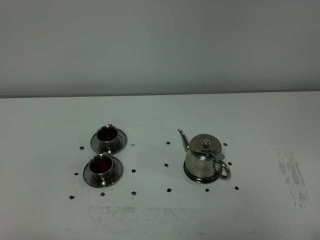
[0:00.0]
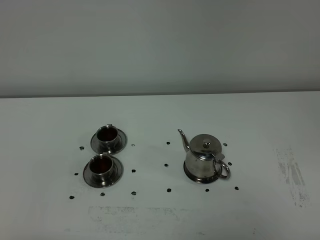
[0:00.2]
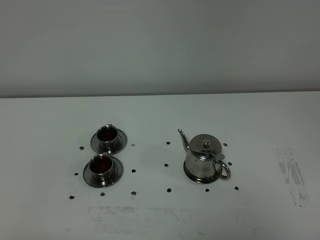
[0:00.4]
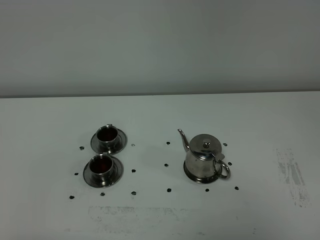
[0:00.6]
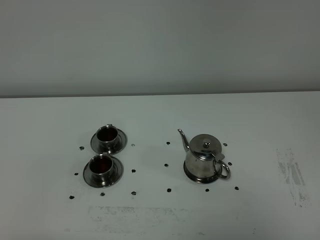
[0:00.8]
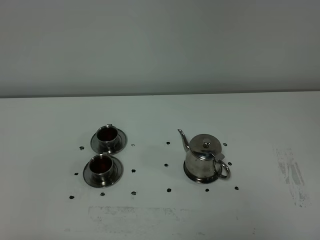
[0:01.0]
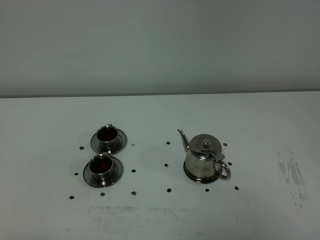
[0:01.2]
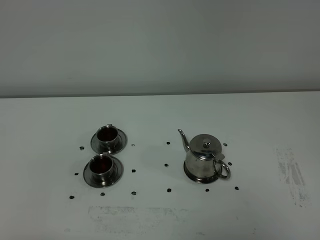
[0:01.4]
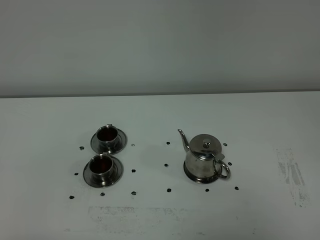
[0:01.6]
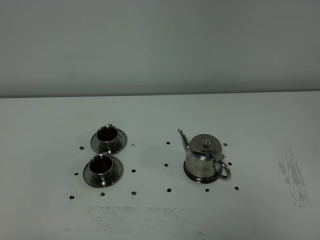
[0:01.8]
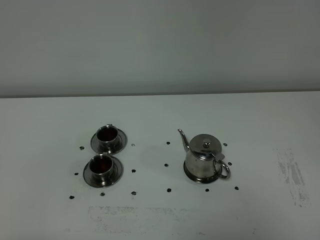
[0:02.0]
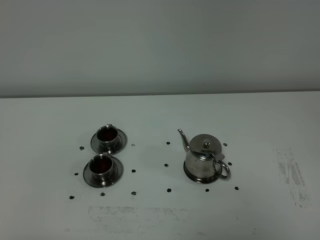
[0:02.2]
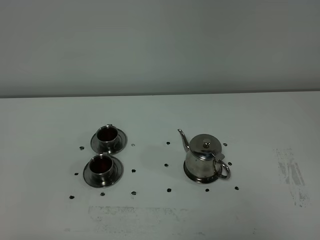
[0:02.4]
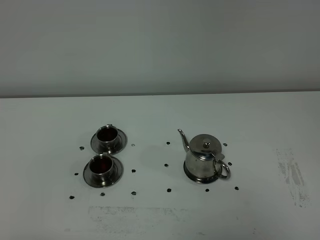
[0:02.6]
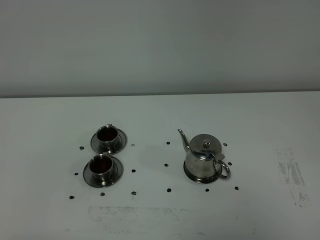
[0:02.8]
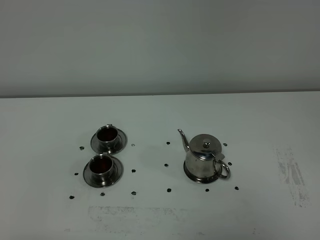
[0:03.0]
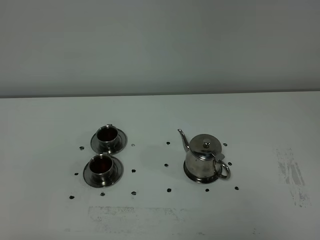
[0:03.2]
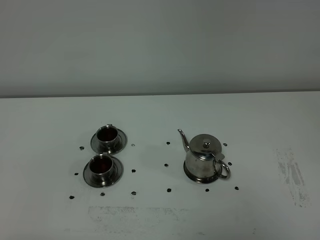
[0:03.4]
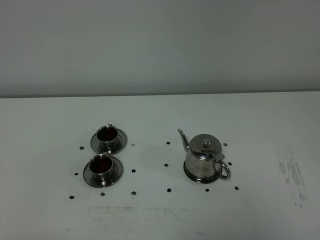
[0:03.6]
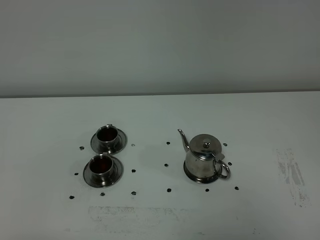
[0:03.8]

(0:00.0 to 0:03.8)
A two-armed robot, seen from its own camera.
Task of the whole recording: grasp the stainless steel teapot and pour the tea into the two stainless steel teacups one by one, put the stainless steel teapot back in its original place.
0:01.2 - 0:03.8: Neither gripper changes place.

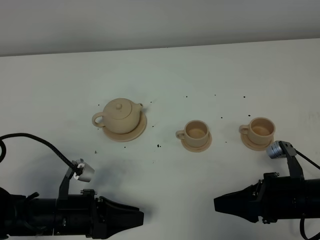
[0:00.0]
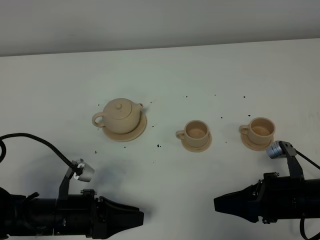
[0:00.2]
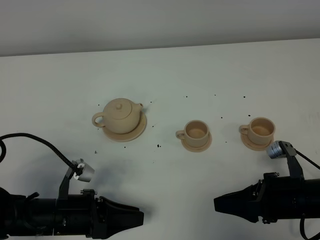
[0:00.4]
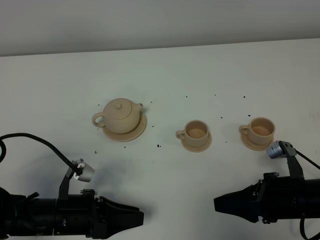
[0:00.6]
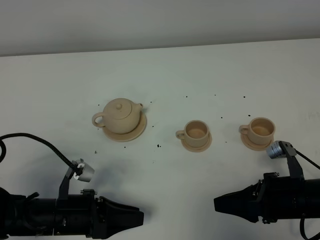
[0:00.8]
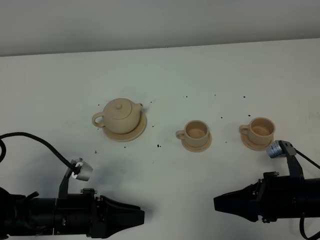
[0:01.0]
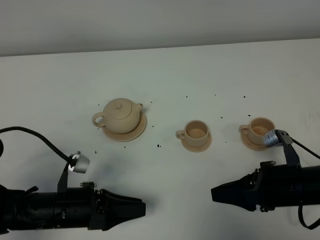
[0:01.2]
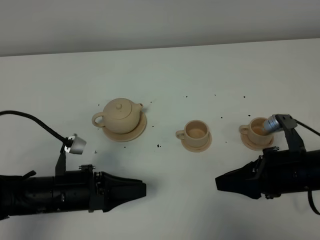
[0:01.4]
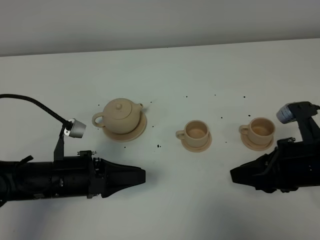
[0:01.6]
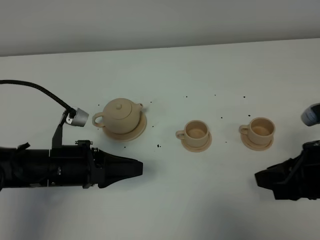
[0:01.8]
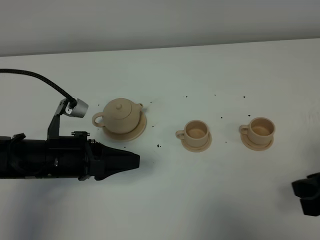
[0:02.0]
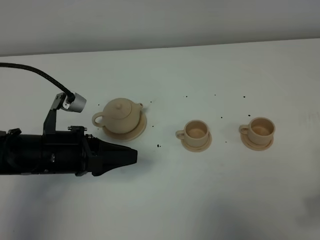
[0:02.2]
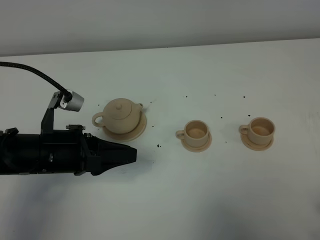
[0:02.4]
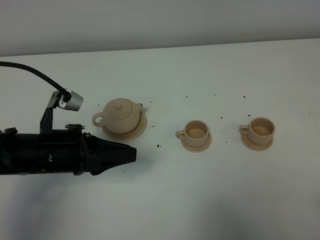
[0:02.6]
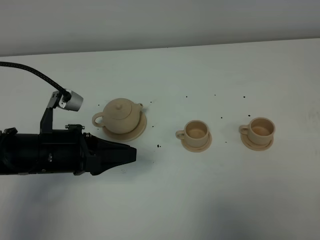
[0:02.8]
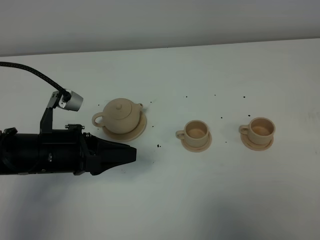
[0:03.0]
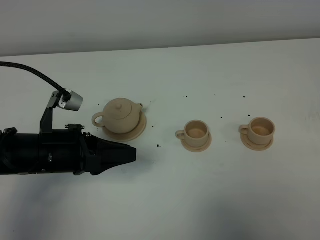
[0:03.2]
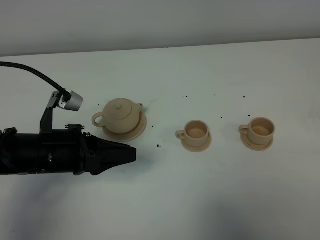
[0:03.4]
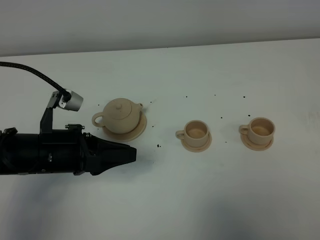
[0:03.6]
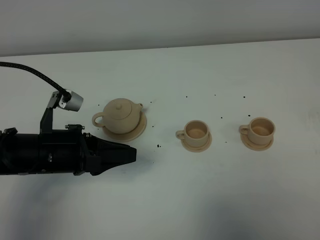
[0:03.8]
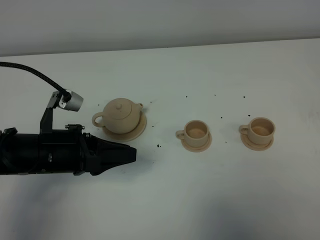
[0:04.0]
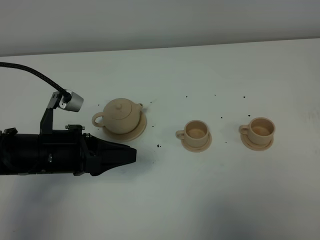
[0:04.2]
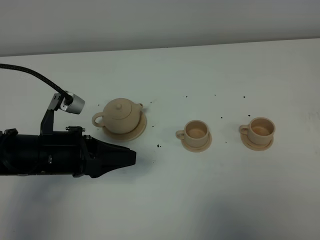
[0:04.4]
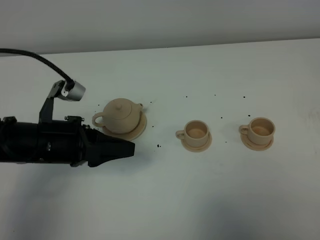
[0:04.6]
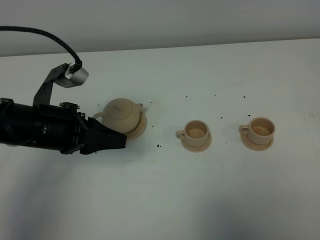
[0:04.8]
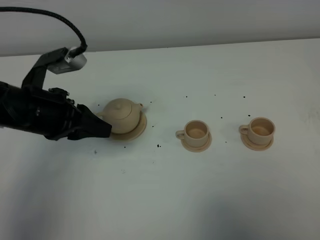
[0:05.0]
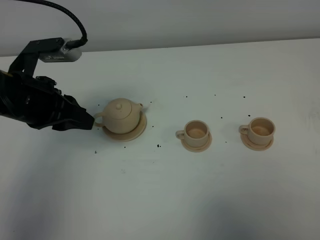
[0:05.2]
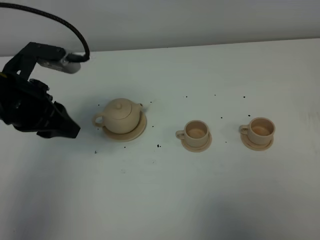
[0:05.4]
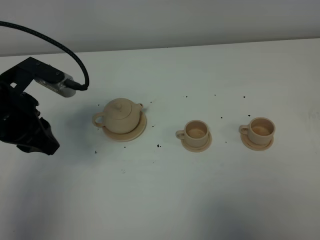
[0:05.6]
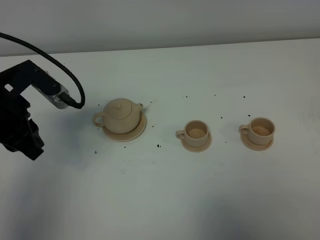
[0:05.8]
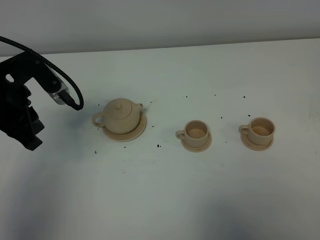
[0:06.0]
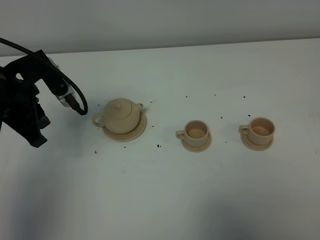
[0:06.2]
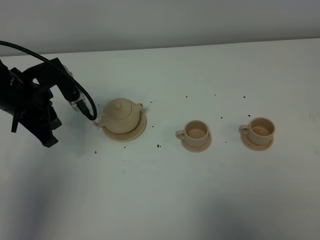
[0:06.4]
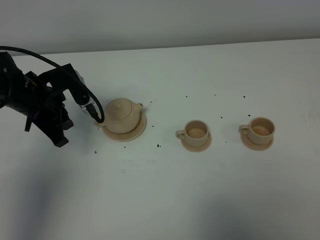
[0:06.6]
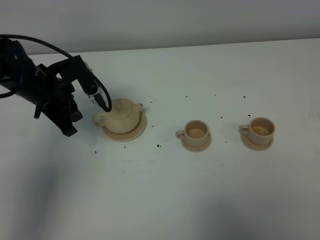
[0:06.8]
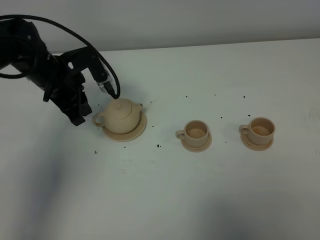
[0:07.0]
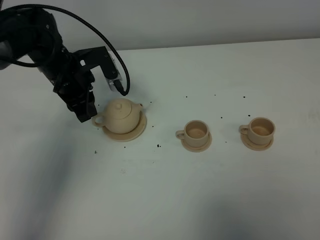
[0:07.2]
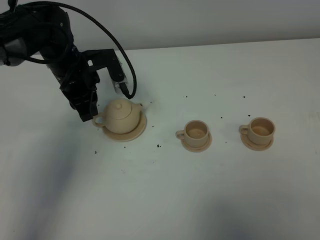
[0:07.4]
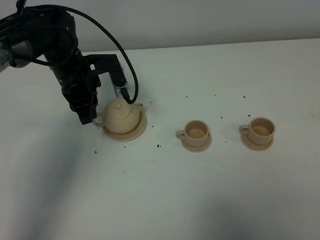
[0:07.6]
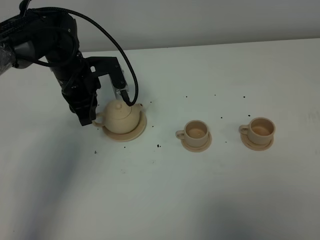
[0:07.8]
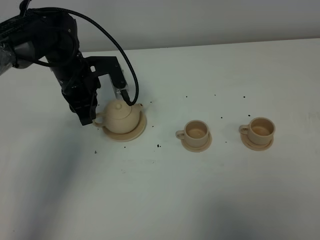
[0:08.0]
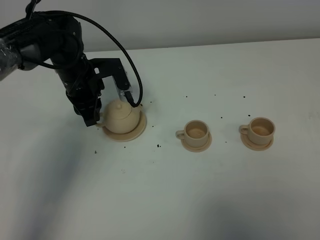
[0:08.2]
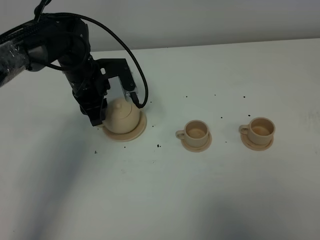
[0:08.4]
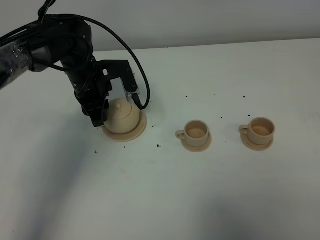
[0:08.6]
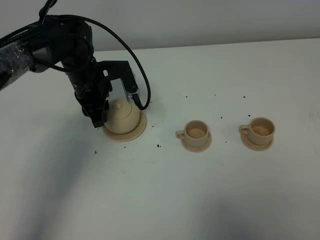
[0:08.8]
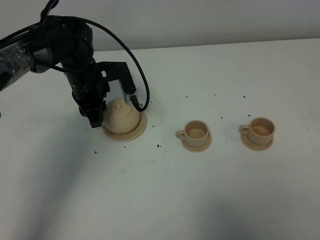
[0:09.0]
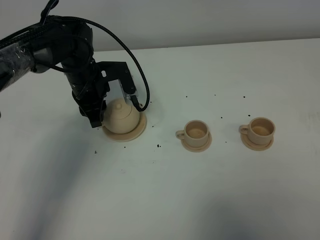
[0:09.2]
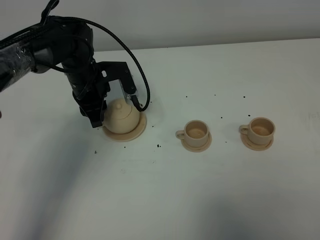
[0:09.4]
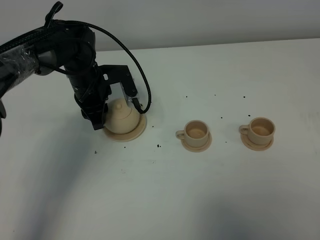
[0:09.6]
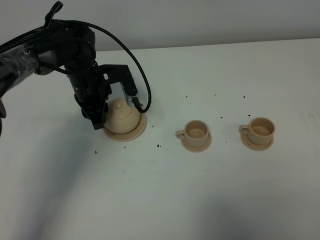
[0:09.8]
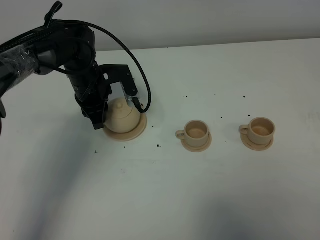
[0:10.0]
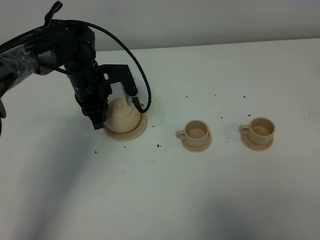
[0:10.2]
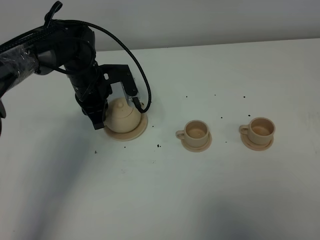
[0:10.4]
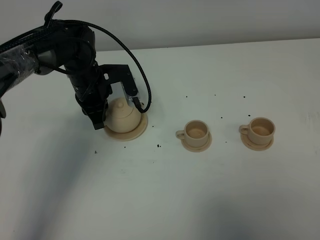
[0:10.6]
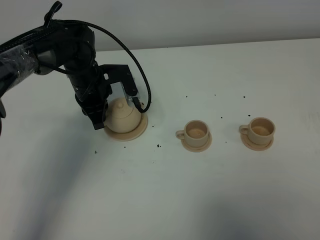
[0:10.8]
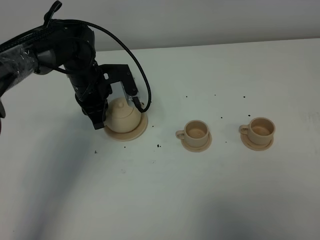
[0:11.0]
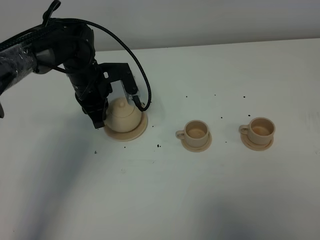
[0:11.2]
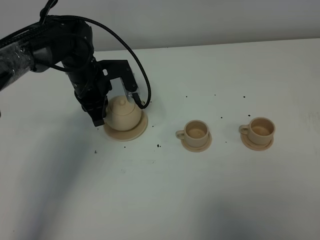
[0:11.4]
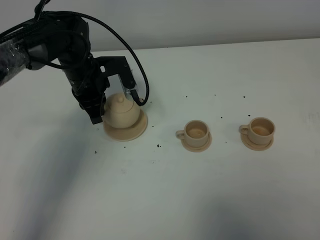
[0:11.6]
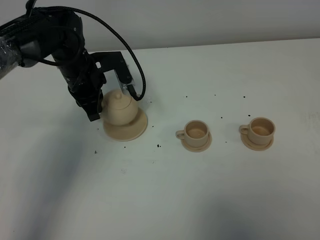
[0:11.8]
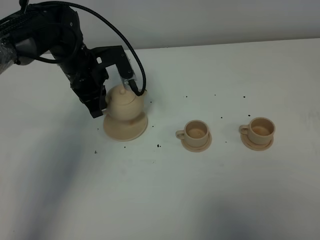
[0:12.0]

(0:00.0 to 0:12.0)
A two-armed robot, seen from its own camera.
Task of the whole recording: grasp the brown teapot and pour the tea into the two brown teacups one by one, put the brown teapot back in its original place.
Step, 0:00.0 - 0:11.4: Pick up the teapot with the left gripper.
0:00.0 - 0:01.6: The left gripper heads upward, covering approximately 5 cm. Meanwhile the right gripper shifts approximately 10 cm upward.
0:01.6 - 0:03.0: The left gripper heads upward, covering roughly 5 cm, while the right gripper shifts some 20 cm backward, to the right and upward.
0:03.0 - 0:04.4: The grippers stay close to where they were, moving slightly.
0:04.4 - 0:06.0: The left gripper heads upward, forward and to the left, covering some 10 cm.
0:06.0 - 0:07.6: The left gripper heads forward, downward and to the right, covering approximately 15 cm.
0:07.6 - 0:09.0: The grippers stay close to where they were, moving slightly.
0:09.0 - 0:10.4: The left gripper closes up.
0:10.4 - 0:12.0: There are only small adjustments of the grippers.

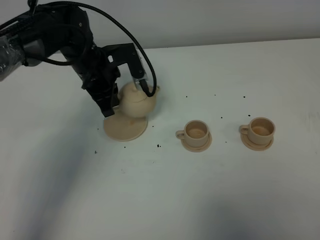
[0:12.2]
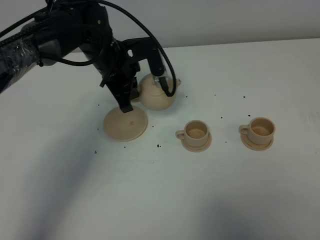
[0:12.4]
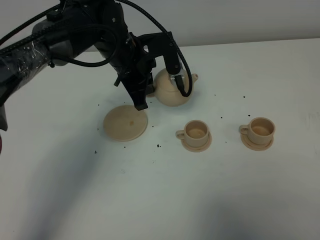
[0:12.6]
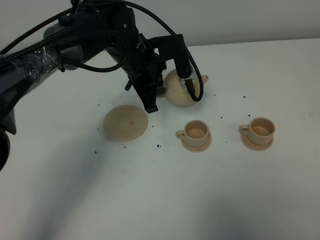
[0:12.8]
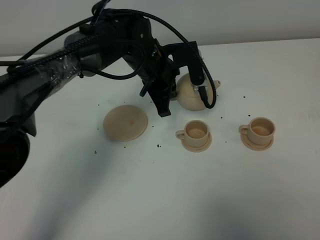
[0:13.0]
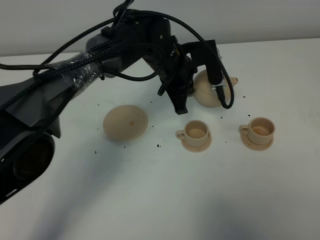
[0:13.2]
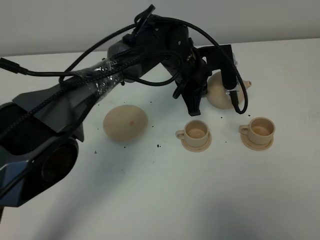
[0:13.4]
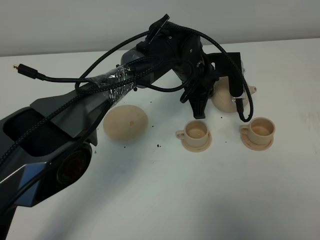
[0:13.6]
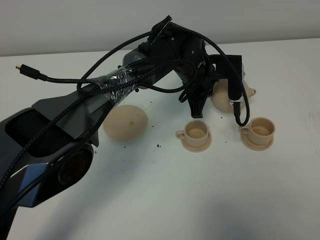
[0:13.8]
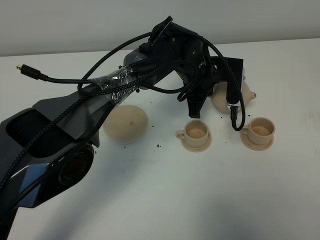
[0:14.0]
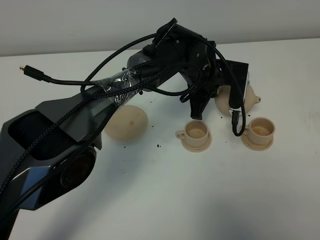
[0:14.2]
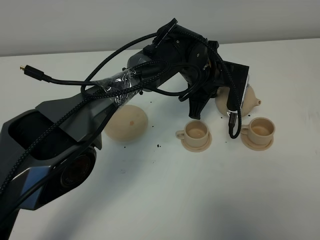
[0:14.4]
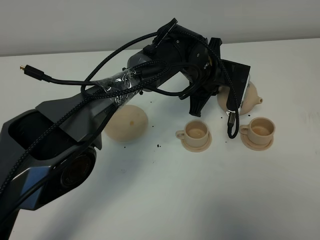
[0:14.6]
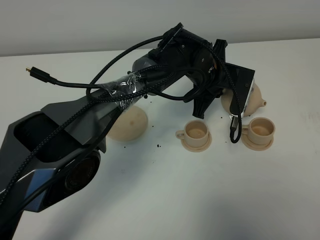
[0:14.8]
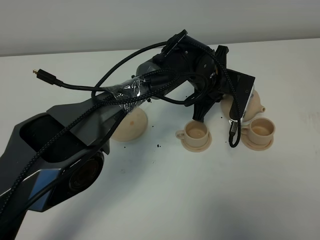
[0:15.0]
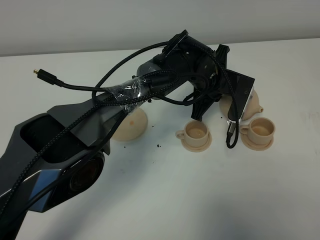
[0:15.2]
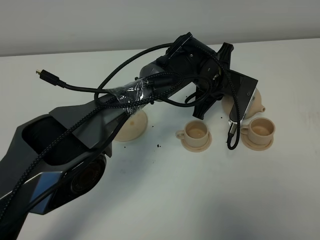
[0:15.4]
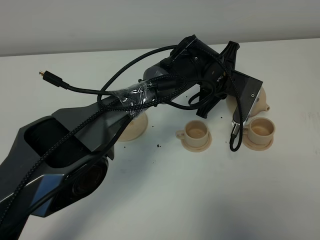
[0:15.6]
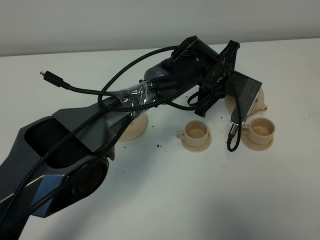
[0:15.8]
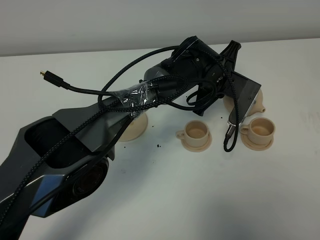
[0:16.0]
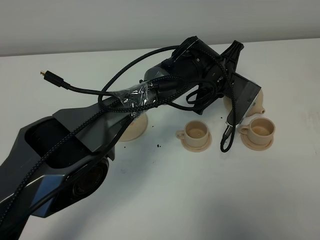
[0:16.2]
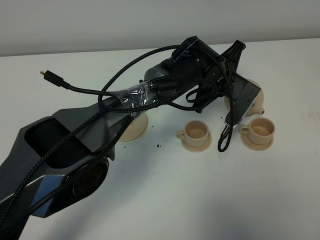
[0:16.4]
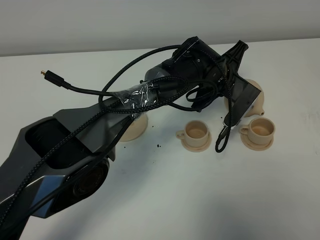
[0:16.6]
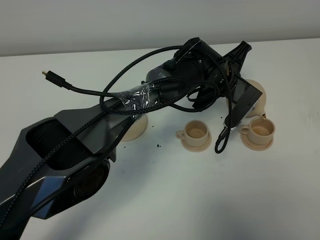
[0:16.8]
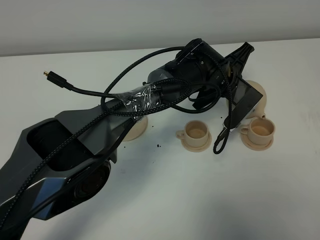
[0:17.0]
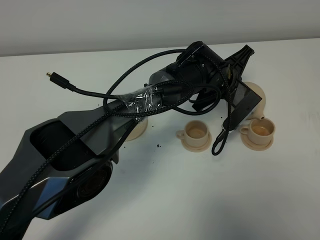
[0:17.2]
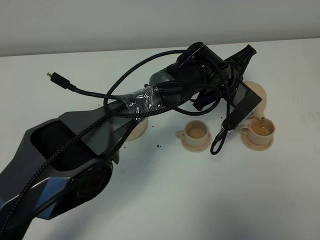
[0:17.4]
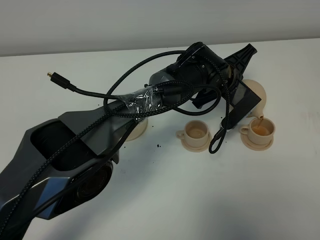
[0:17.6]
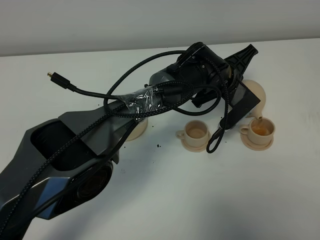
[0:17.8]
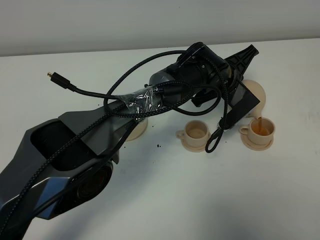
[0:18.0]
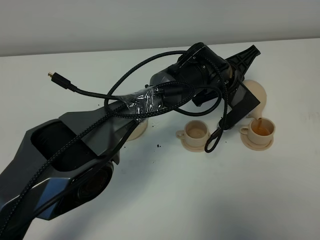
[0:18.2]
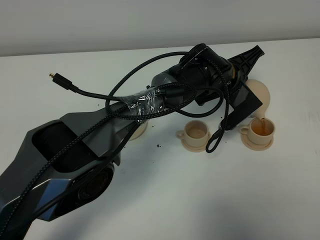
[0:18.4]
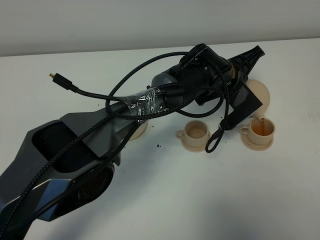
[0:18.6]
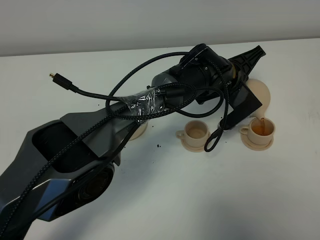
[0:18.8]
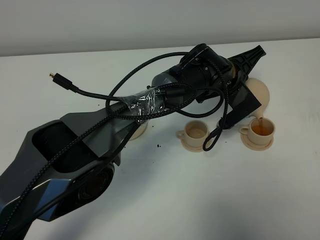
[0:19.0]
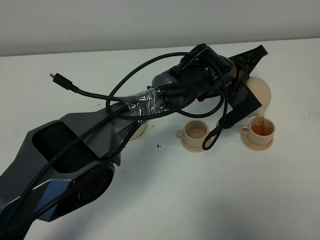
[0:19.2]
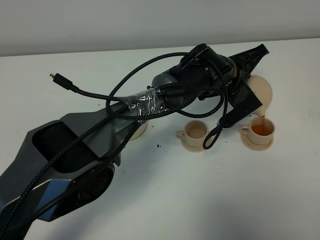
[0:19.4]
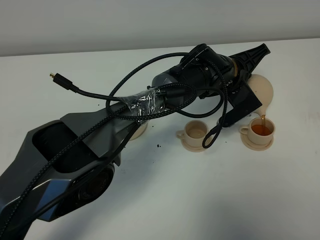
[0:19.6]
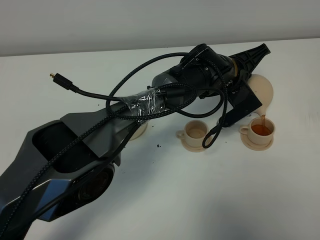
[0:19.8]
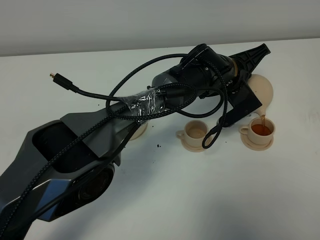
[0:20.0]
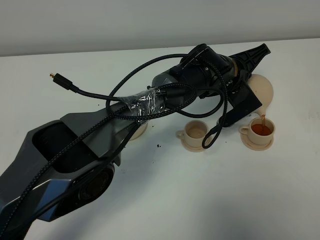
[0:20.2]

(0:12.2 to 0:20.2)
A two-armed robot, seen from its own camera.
Task of the whole recording: grasp the brown teapot and pour the tea into the two brown teacups one by one, put the brown teapot back in its original place.
0:12.2 - 0:13.8: The left gripper travels to the right by some 20 cm.
0:17.0 - 0:20.2: The grippers move only a little.
